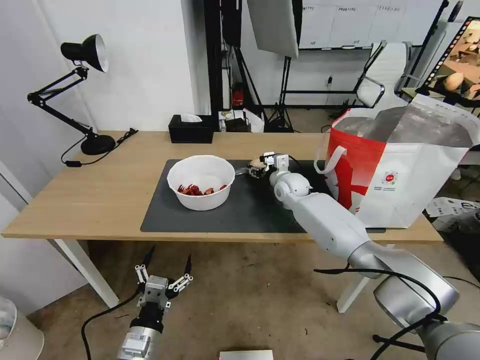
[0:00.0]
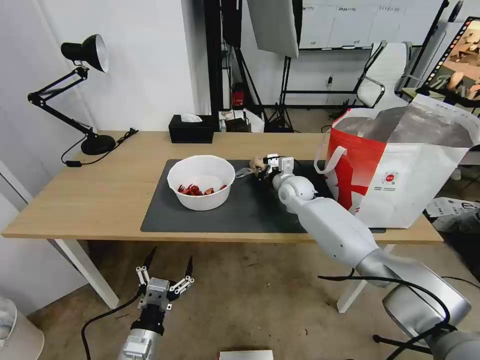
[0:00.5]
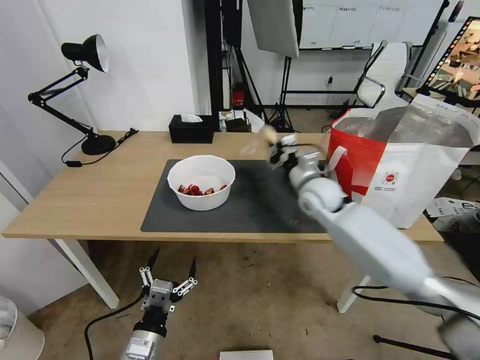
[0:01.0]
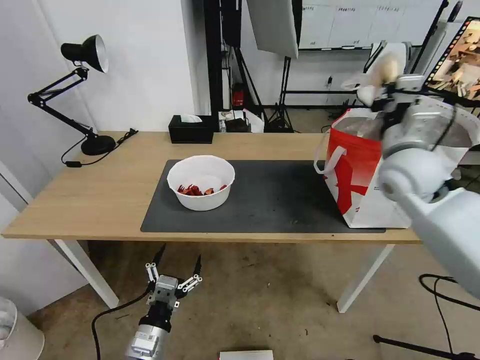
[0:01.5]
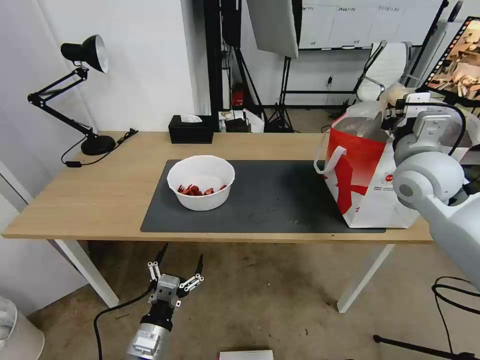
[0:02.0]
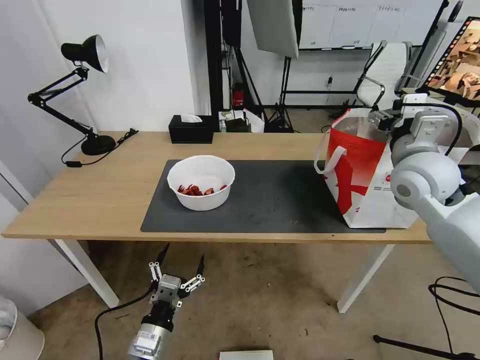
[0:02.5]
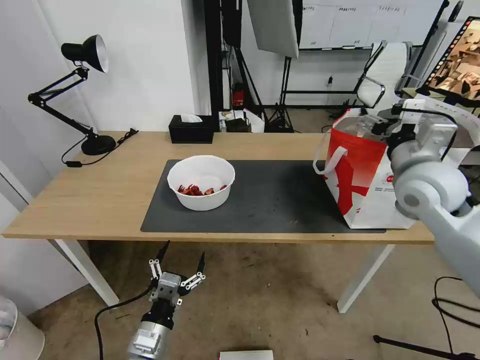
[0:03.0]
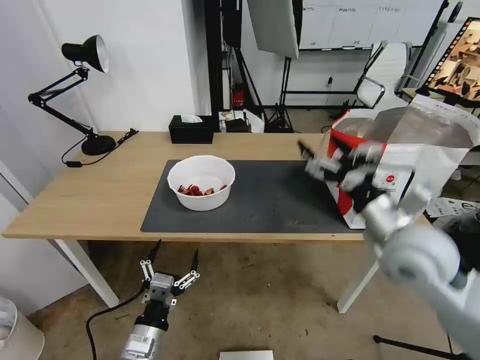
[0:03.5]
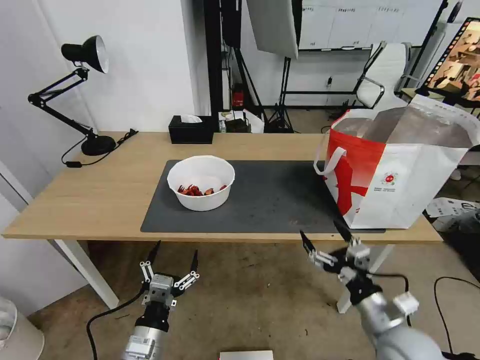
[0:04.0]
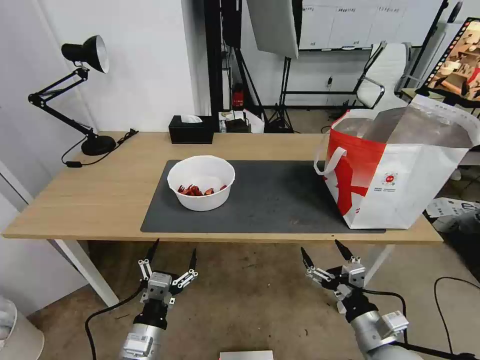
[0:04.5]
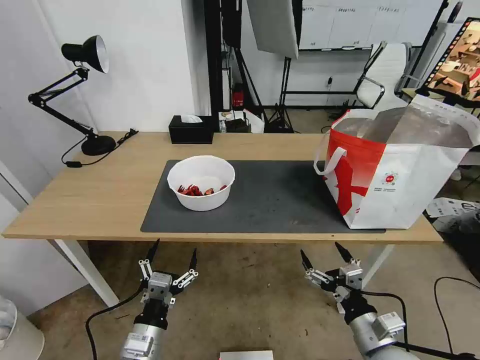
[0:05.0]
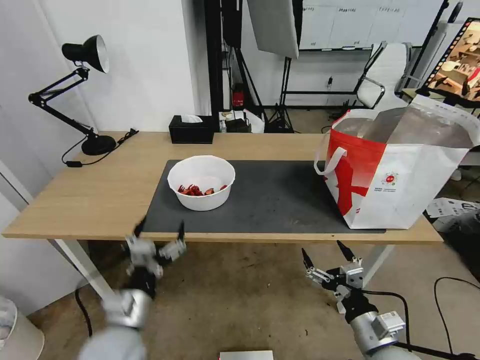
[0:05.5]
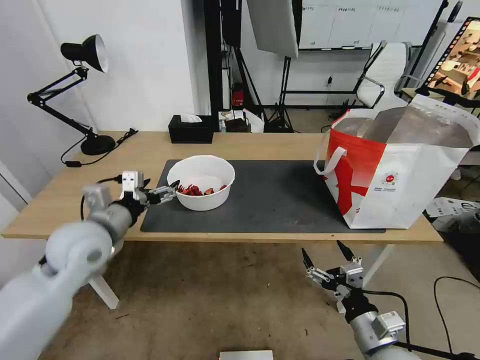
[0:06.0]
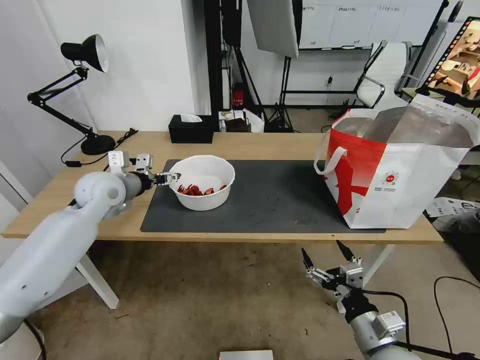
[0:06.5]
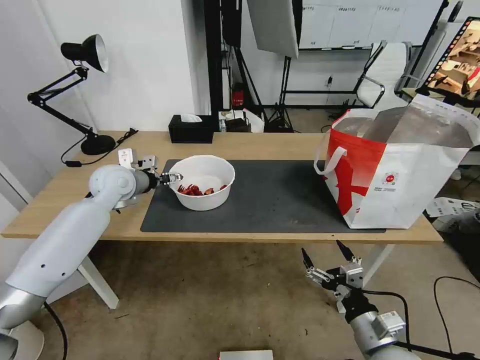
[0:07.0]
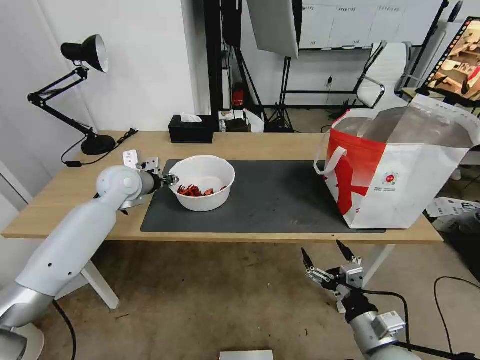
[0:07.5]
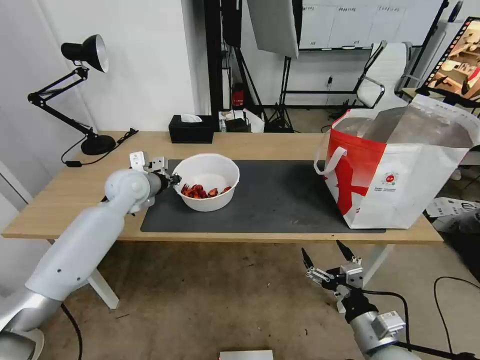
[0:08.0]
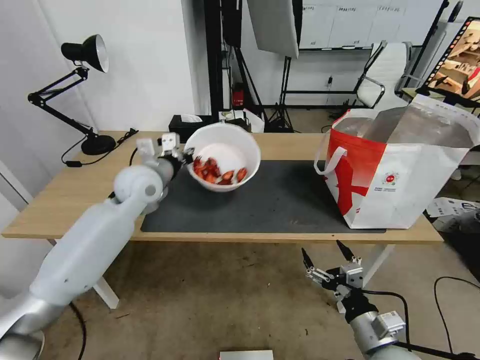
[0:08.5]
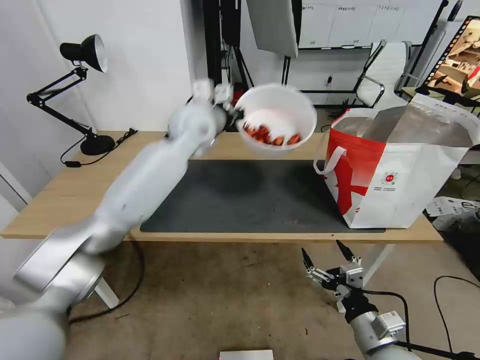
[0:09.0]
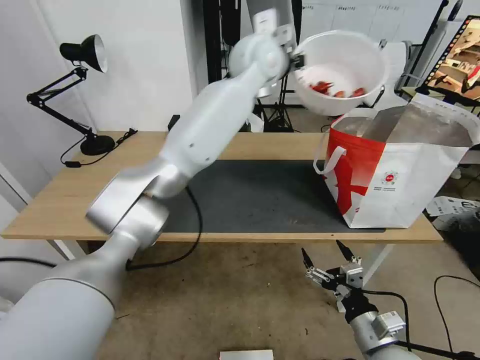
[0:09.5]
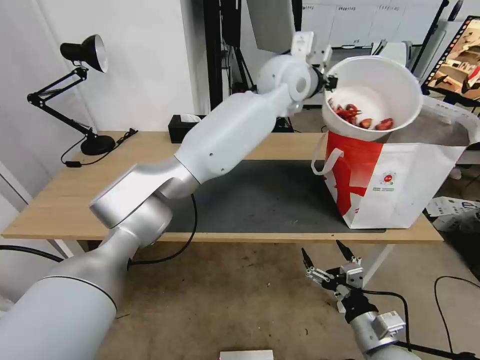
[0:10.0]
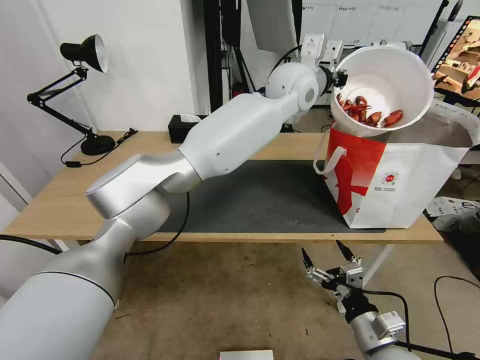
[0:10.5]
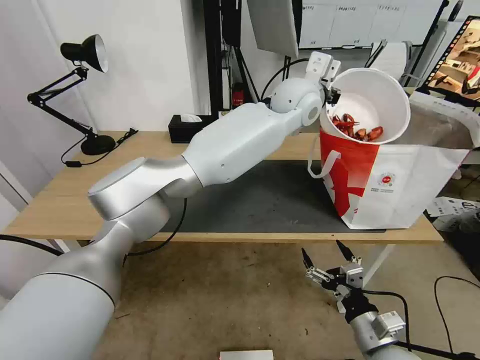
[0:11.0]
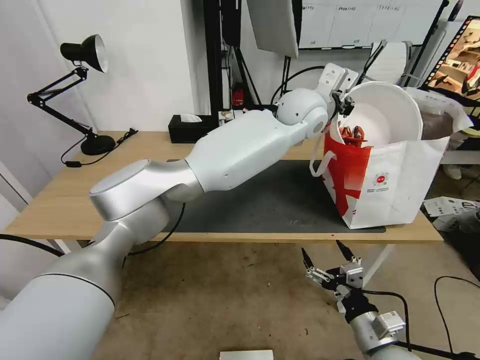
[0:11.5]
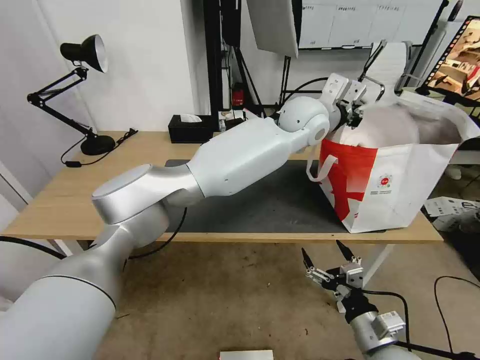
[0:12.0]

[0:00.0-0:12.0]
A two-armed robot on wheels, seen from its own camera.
Task of the whole recording: Pick up the trash from the table and place it into the takeout bag.
0:00.0 to 0:02.0: The right gripper moves upward, to the right and backward, roughly 30 cm, and closes.
0:02.0 to 0:04.0: The right gripper travels backward and downward by about 30 cm, and opens.
0:04.0 to 0:06.0: The left gripper travels upward, forward and to the left by roughly 30 cm.
0:06.0 to 0:08.0: The left gripper travels forward by about 15 cm, and closes up.
0:08.0 to 0:10.0: The left gripper shifts some 40 cm to the right and upward.
0:10.0 to 0:12.0: The left gripper goes approximately 5 cm downward.

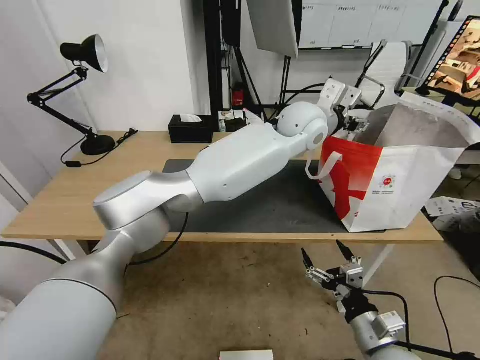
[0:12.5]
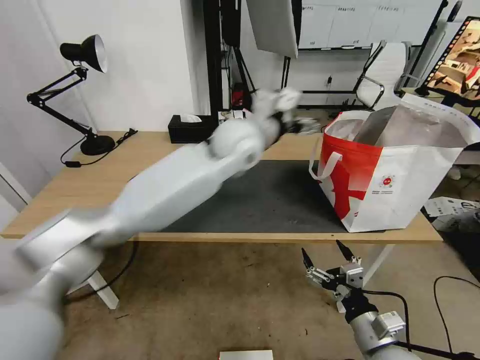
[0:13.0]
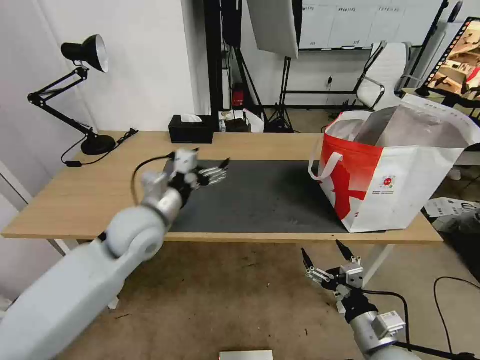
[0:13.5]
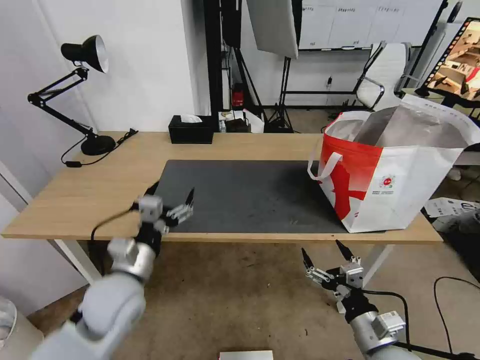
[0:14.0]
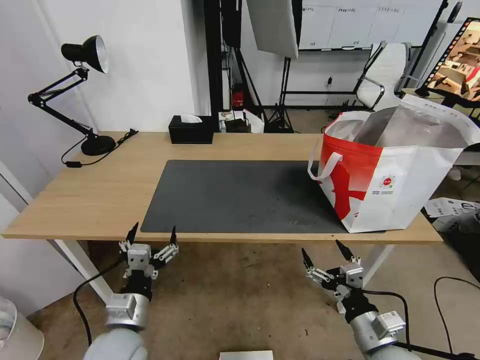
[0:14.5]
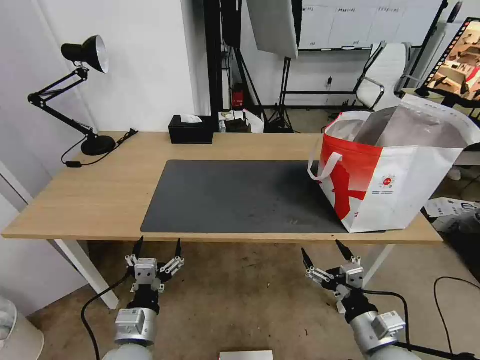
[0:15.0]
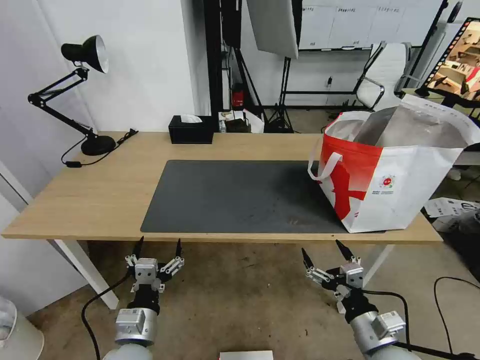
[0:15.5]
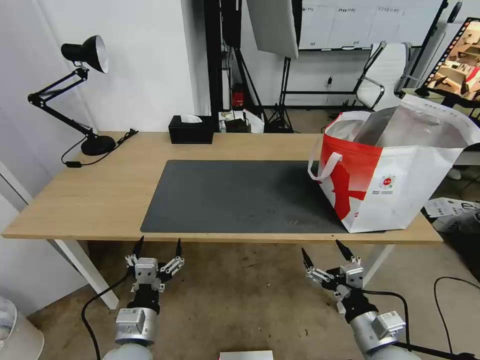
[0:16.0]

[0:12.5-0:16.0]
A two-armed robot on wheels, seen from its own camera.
Task of the whole recording: Pick up the trash from the table and place it into the takeout bag.
0:12.5 to 0:14.5: The left gripper goes roughly 60 cm to the left, backward and downward.
0:14.5 to 0:16.0: There are only small adjustments of the grippers.

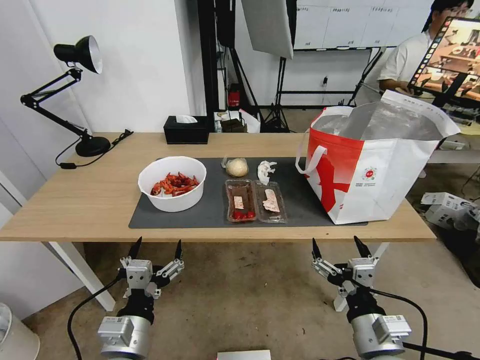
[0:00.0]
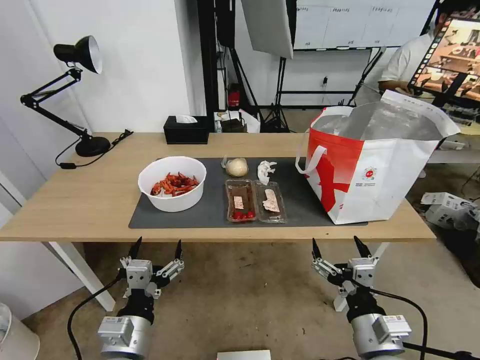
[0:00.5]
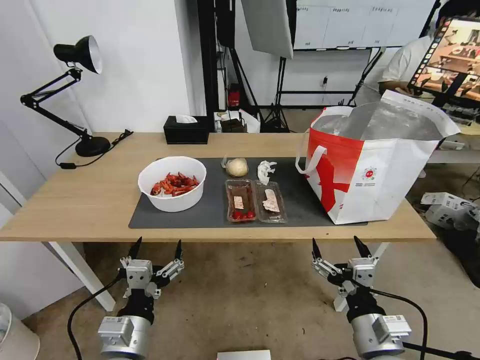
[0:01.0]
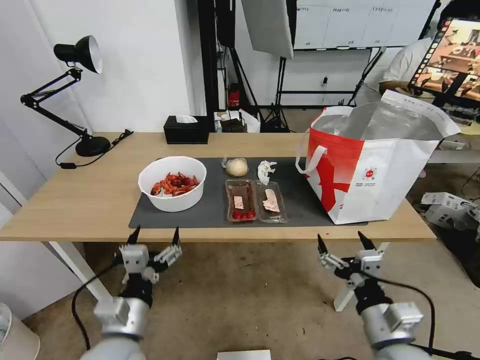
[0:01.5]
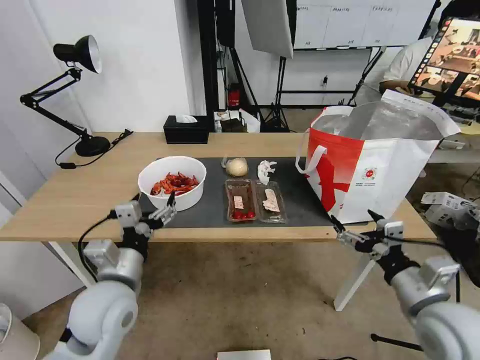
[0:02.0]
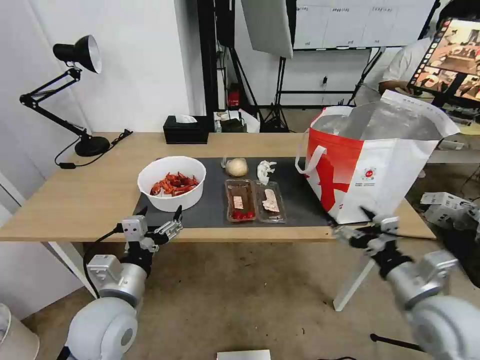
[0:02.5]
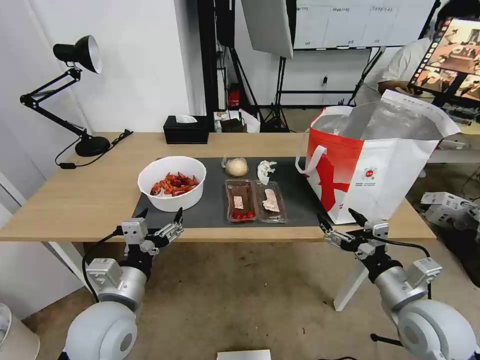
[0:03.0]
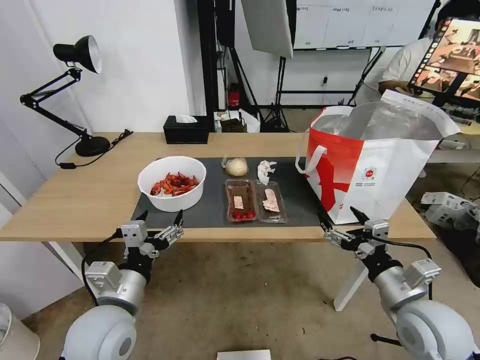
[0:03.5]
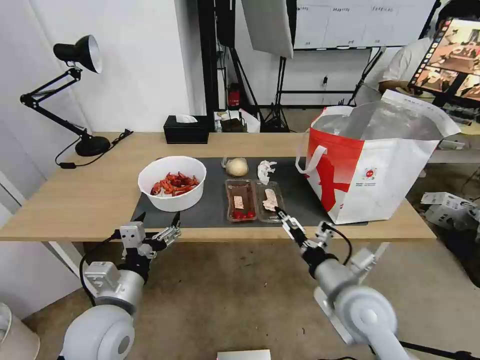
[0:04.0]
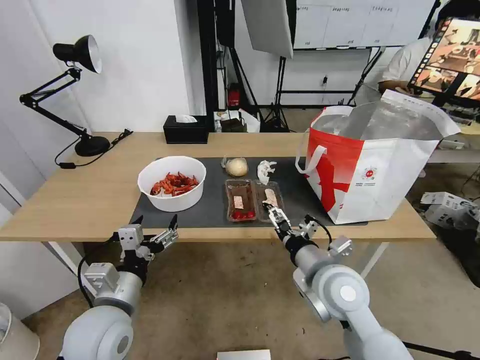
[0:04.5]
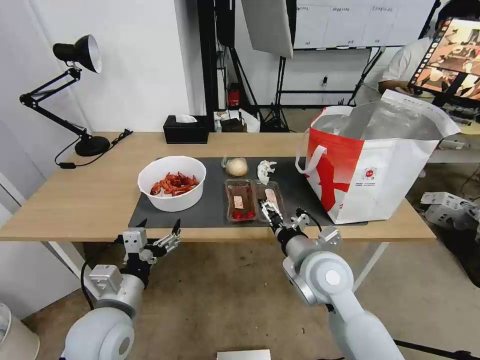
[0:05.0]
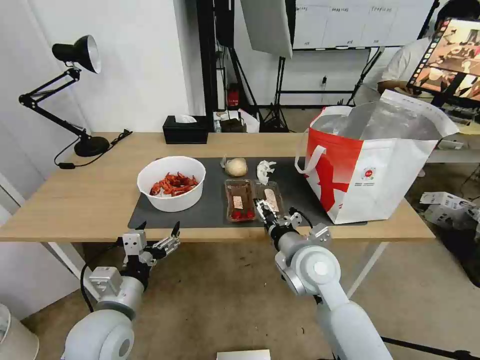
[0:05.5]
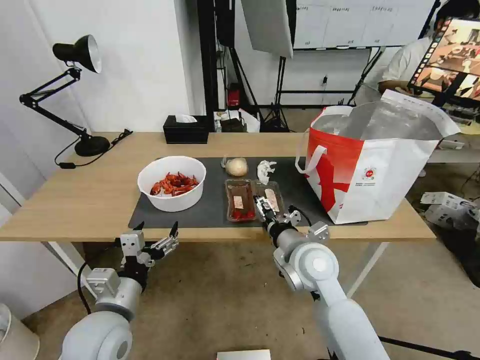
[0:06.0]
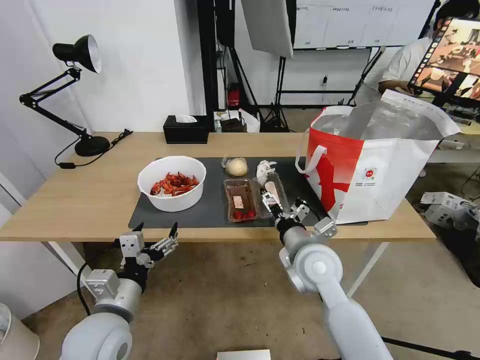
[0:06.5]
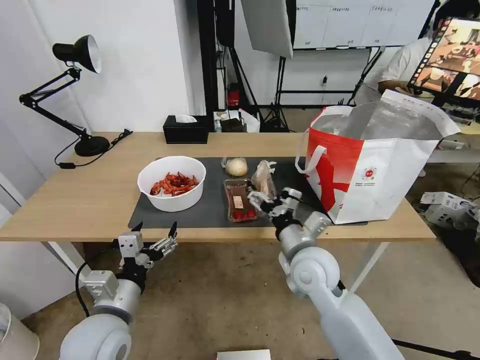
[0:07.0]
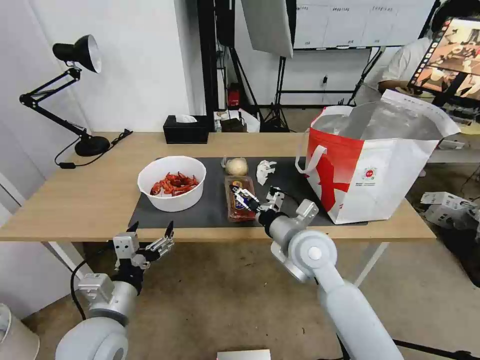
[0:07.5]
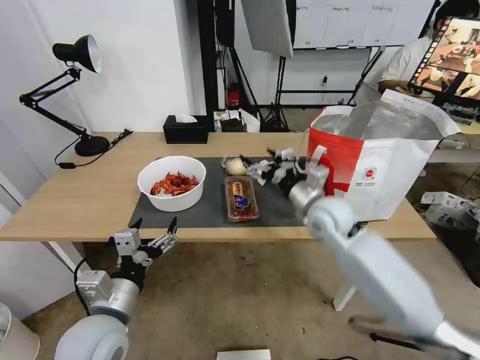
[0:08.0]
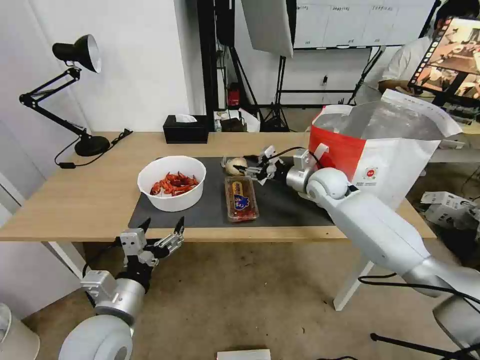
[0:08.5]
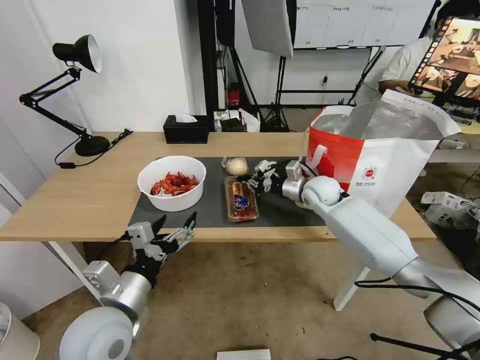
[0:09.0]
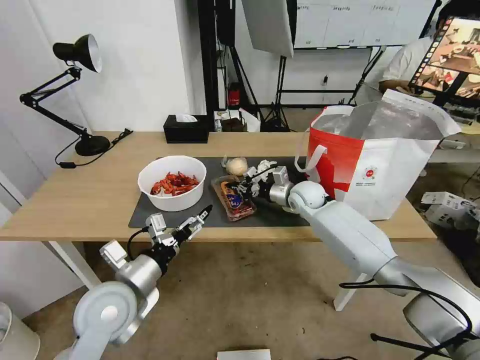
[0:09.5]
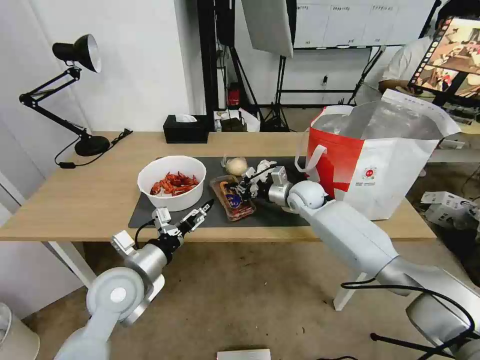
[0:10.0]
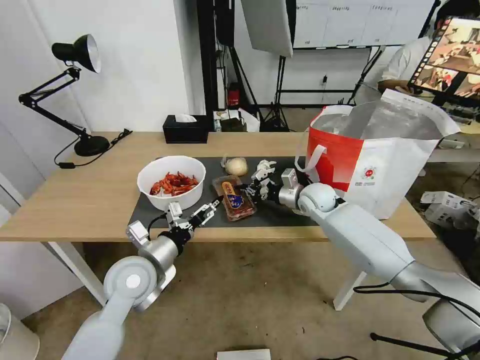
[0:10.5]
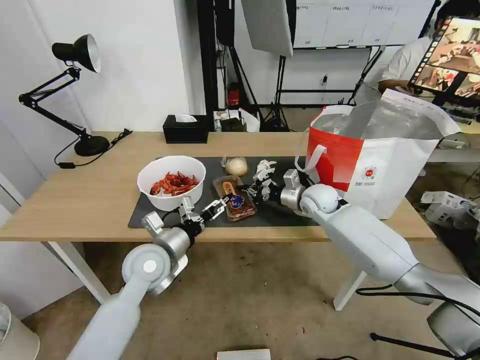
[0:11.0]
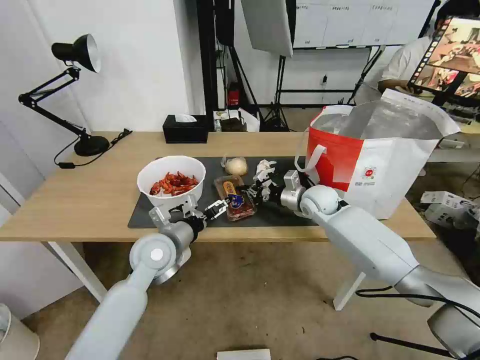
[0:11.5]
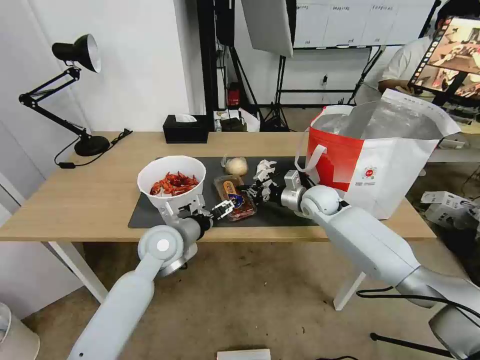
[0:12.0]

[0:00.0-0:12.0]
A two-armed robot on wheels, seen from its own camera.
Task of the whole recording: Pick up the trash from the table and place it into the takeout bag.
0:02.0 to 0:04.0: The right gripper heads to the left, covering about 10 cm.
0:04.0 to 0:06.0: The right gripper goes about 10 cm forward and to the left.
0:06.0 to 0:08.0: The right gripper goes about 10 cm forward and to the right.
0:08.0 to 0:10.0: The right gripper travels forward and downward by approximately 15 cm, and closes. The left gripper moves forward, roughly 10 cm.
0:10.0 to 0:12.0: The left gripper moves forward and to the right, approximately 10 cm.
